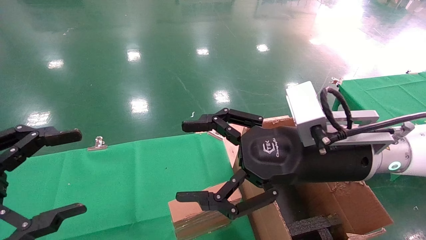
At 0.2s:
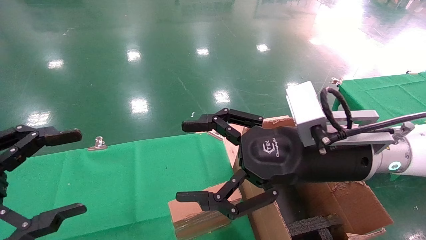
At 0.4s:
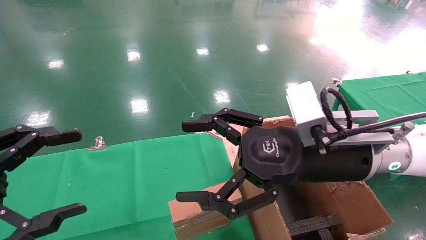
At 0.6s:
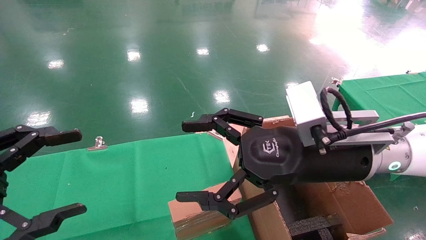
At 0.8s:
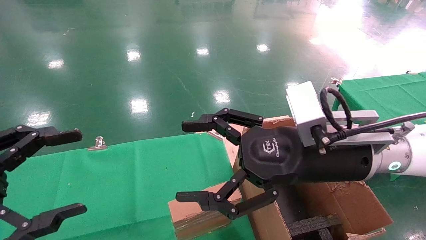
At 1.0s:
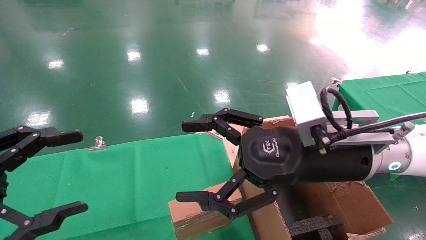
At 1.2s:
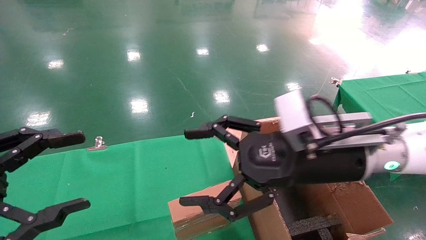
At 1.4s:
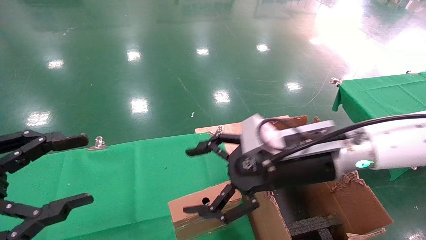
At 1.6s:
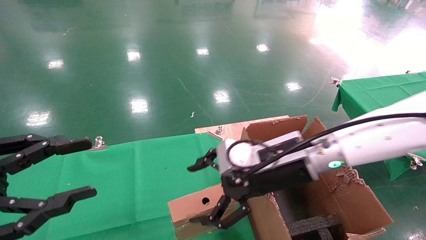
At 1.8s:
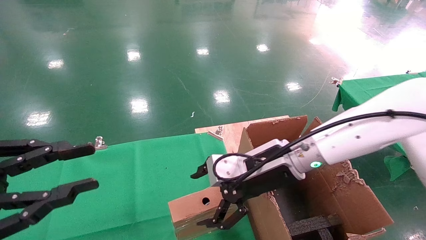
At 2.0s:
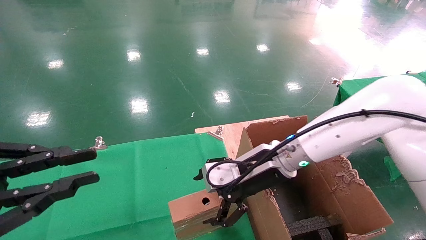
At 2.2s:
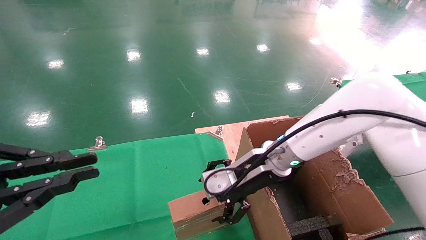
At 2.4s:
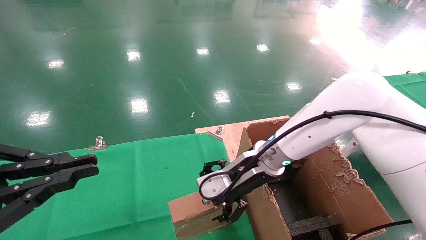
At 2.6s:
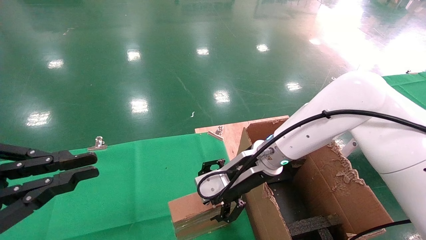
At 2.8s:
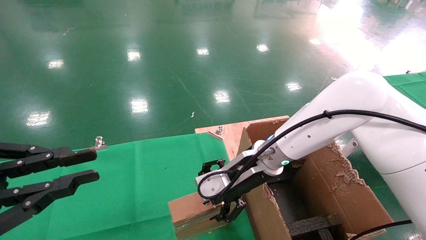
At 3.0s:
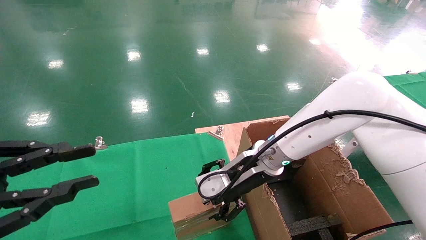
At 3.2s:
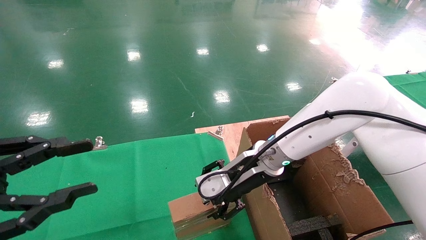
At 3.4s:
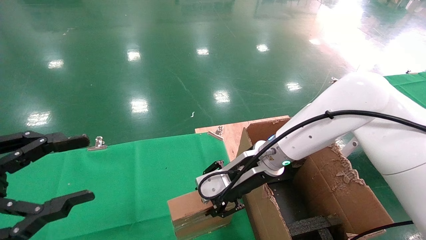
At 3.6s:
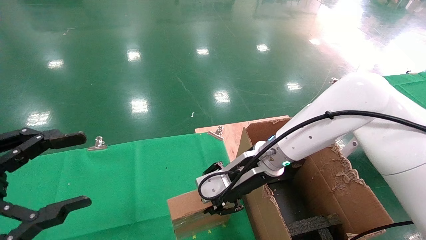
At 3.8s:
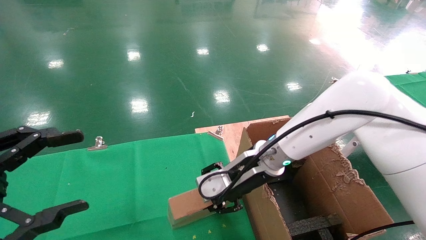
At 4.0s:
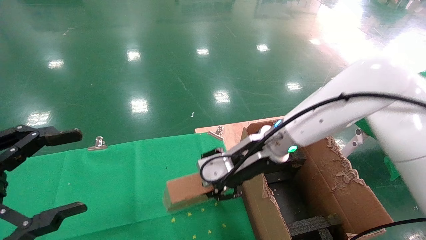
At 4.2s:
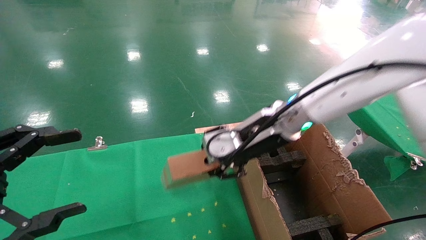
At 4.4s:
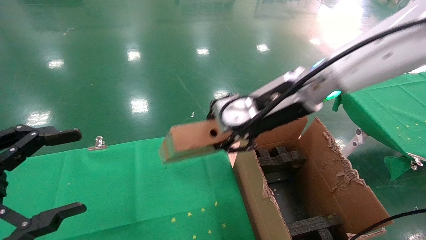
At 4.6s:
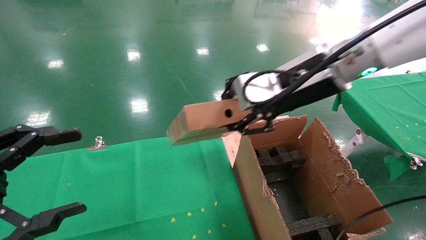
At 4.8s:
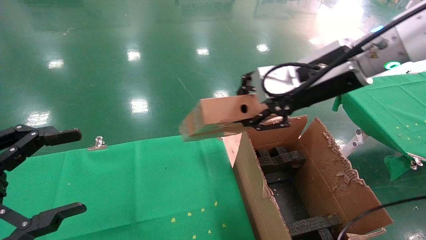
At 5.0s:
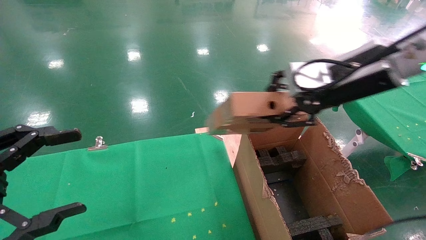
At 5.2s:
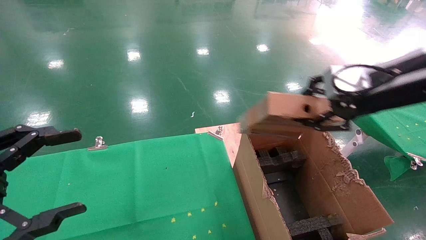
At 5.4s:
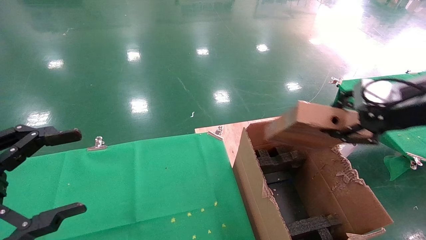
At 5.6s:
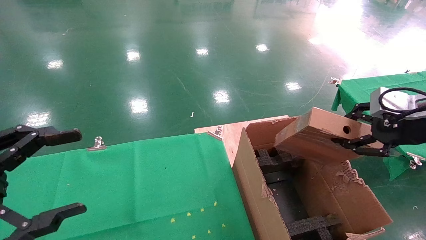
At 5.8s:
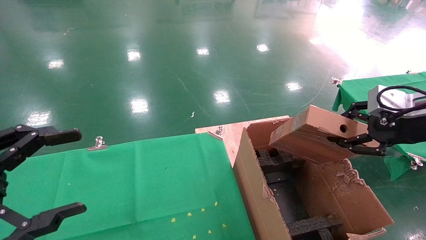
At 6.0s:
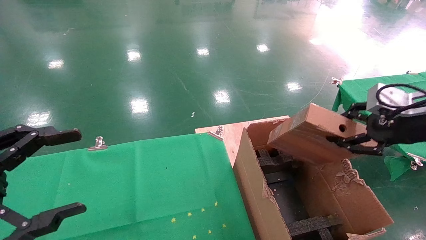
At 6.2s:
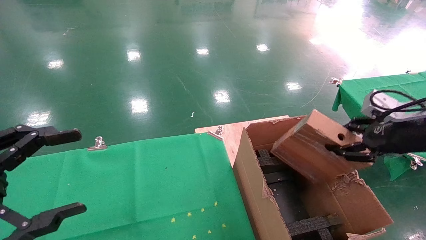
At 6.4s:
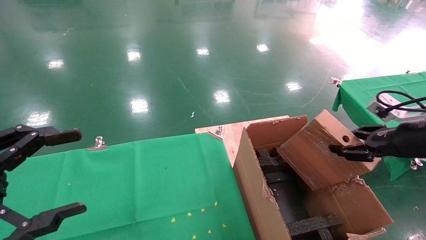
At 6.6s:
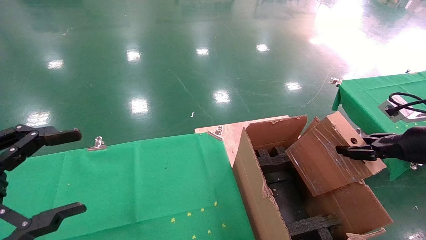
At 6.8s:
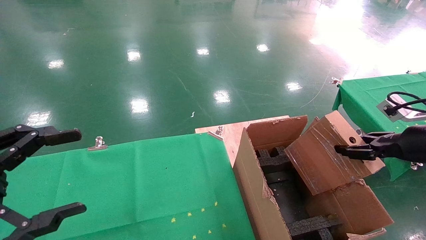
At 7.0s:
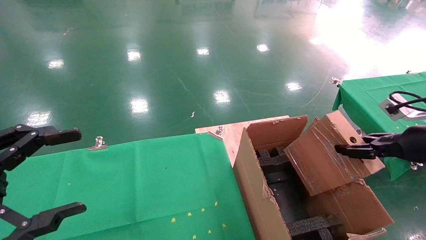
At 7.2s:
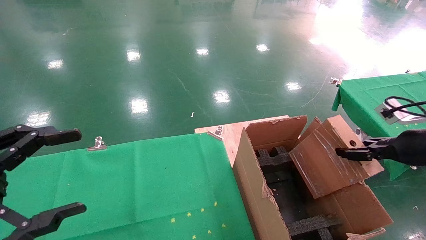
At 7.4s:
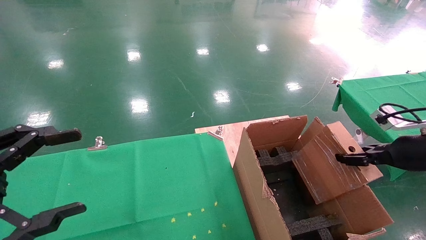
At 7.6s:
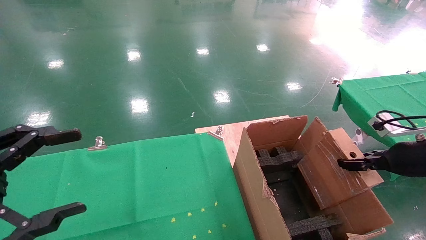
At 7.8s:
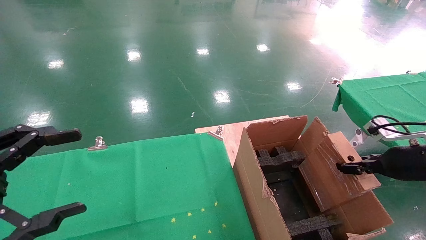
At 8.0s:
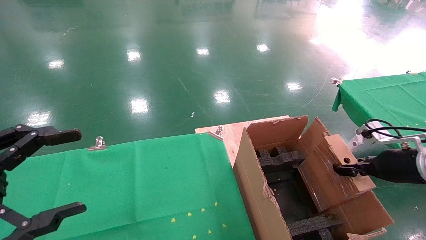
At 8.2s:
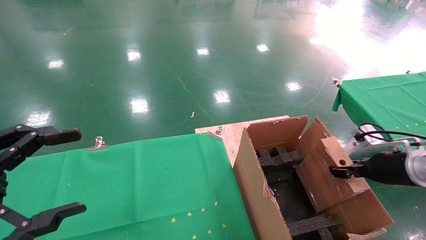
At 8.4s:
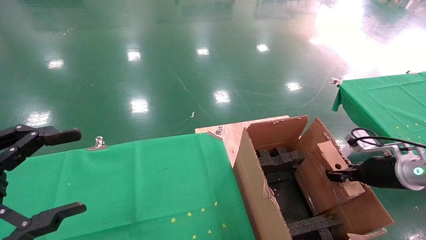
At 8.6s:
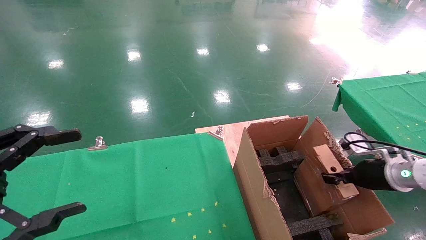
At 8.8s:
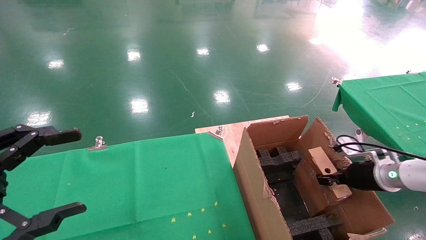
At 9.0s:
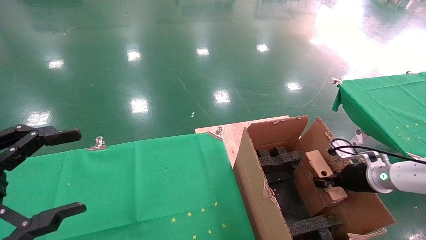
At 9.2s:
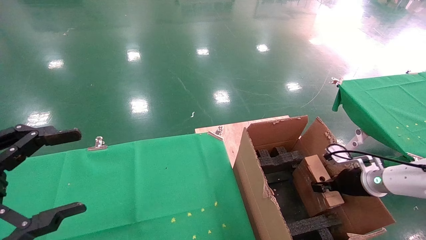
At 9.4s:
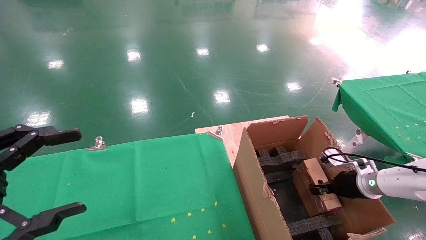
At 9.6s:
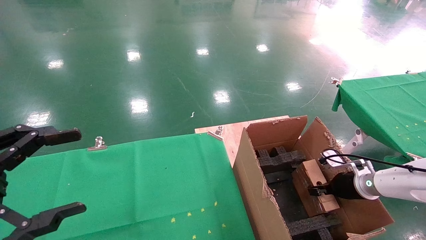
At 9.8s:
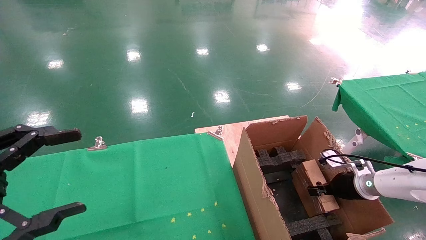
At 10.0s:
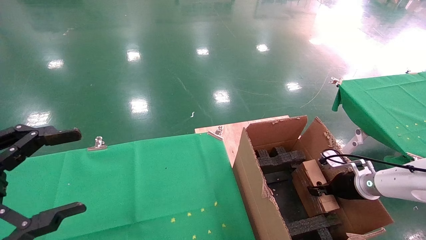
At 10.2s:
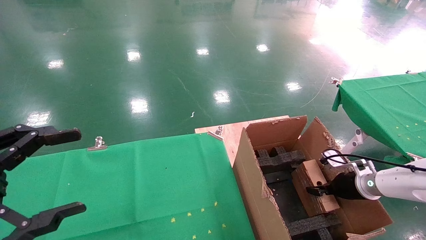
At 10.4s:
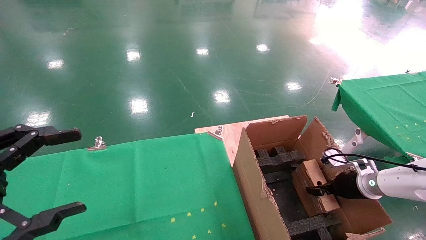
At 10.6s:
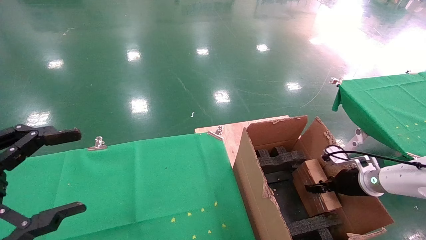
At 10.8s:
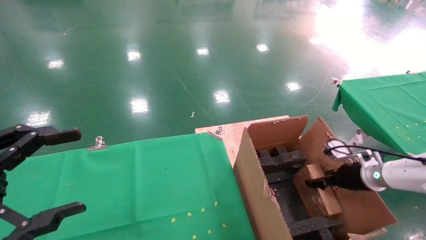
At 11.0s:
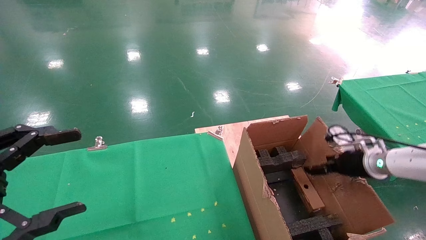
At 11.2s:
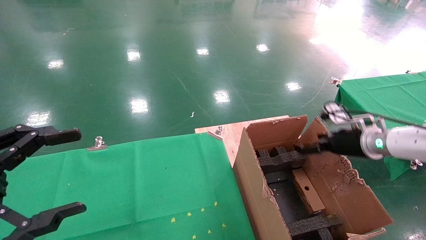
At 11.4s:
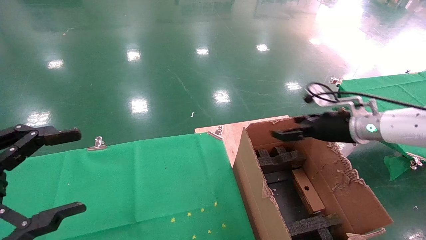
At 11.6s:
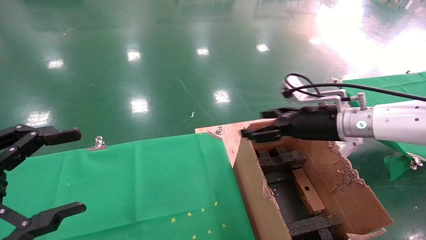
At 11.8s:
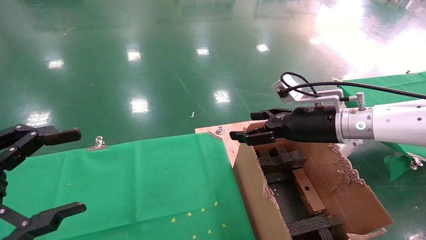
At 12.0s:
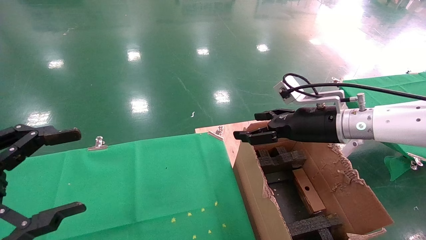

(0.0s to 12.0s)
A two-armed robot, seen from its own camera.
Task of the whole recording: using a robotic arm to pick up a cardboard box and palace it the carton.
Step, 1.4s - 3.6s: Pick up the mouse and the power cord paper box.
Step, 3.8s - 11.4s: Place the mouse and the power cord paper box into the container.
0.0s - 1.6s: The left gripper closes up. Meanwhile the right gripper moves forward, roughly 5 cm.
1.6s - 3.0s: The right gripper moves forward, some 5 cm; the left gripper closes its fingers.
3.0s - 4.4s: The right gripper goes about 15 cm upward, and closes; the left gripper opens its fingers.
4.4s - 6.0s: The right gripper goes approximately 25 cm to the right.
6.0s - 7.6s: The right gripper goes about 10 cm downward.
7.6s - 9.0s: The right gripper goes about 15 cm downward and forward.
9.0s - 10.4s: The grippers stay close to where they were, moving slightly.
10.4s - 12.0s: The right gripper heads upward and to the left, covering roughly 25 cm, and opens its fingers.

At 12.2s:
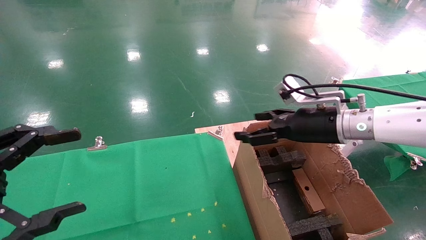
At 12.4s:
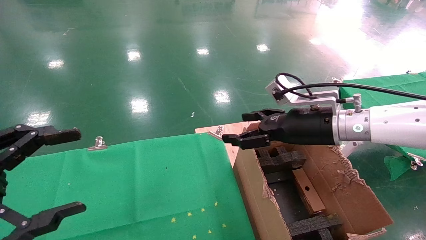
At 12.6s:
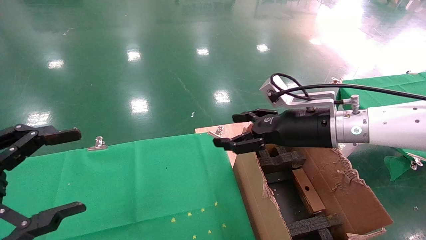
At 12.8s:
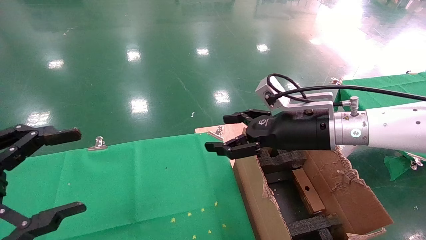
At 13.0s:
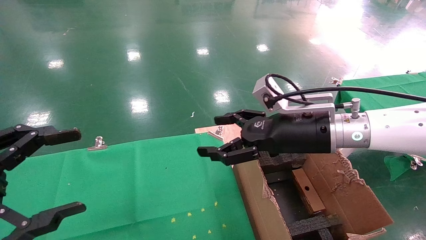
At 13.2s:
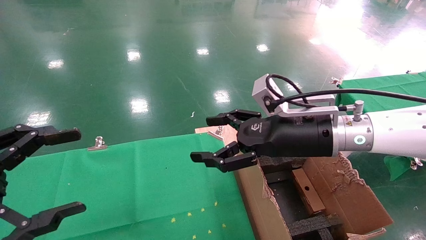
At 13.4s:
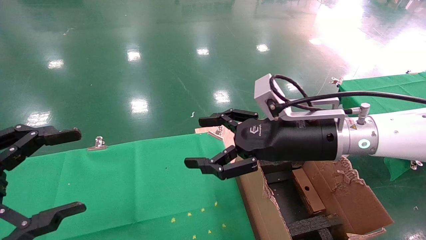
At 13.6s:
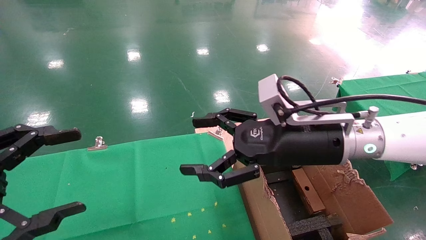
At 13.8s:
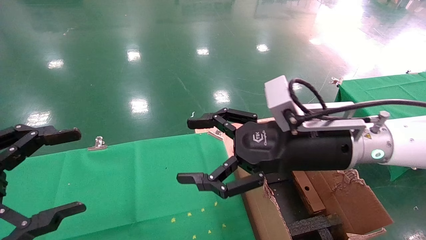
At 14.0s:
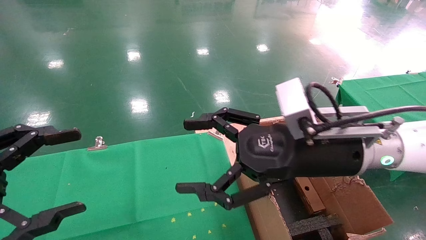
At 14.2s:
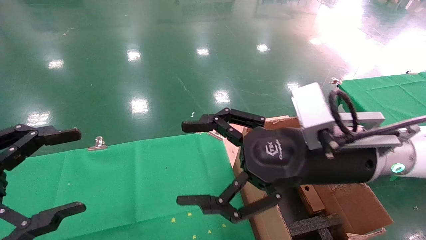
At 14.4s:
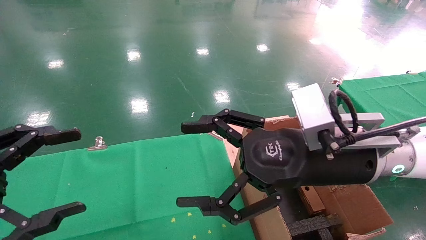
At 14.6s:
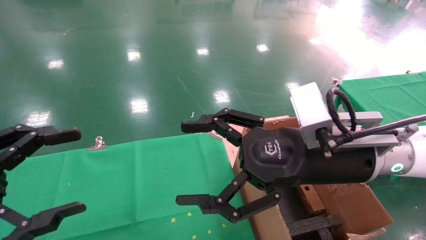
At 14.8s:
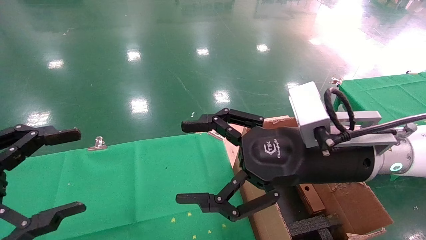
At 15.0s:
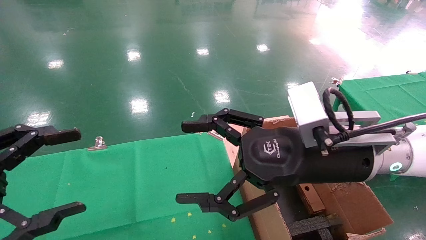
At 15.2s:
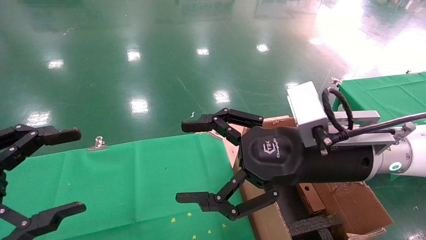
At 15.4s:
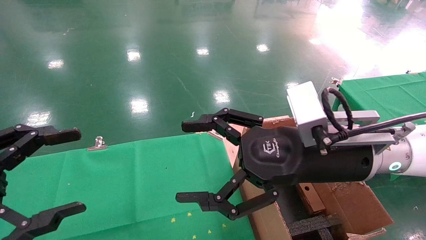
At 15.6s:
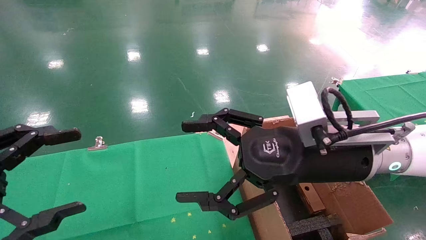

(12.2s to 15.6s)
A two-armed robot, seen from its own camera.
Task of the whole recording: using a robotic arm to pick up a cardboard box and palace it the carton.
12.2s - 13.8s: The right gripper moves backward and to the left, approximately 10 cm.
13.8s - 15.6s: The grippers make only small movements.
